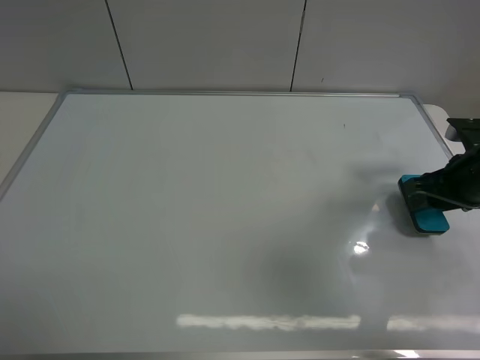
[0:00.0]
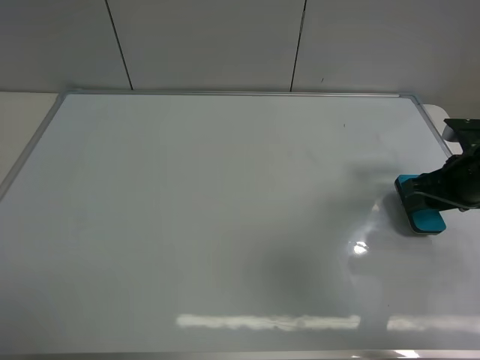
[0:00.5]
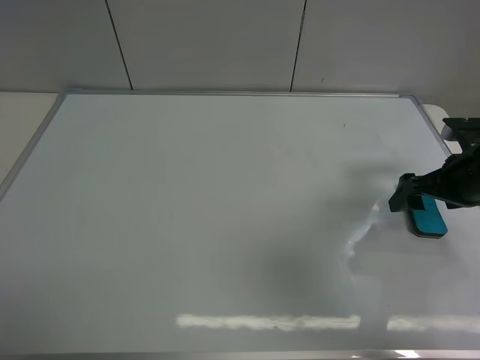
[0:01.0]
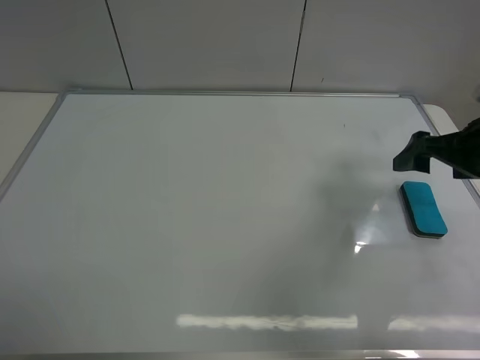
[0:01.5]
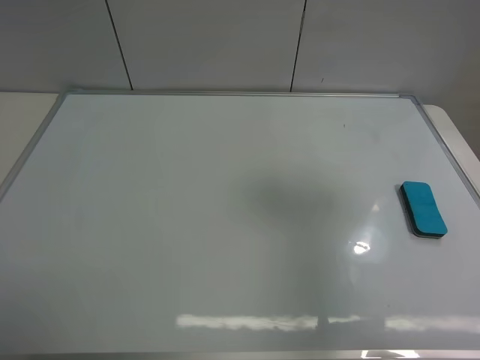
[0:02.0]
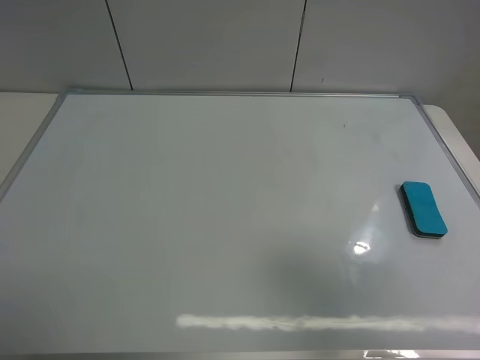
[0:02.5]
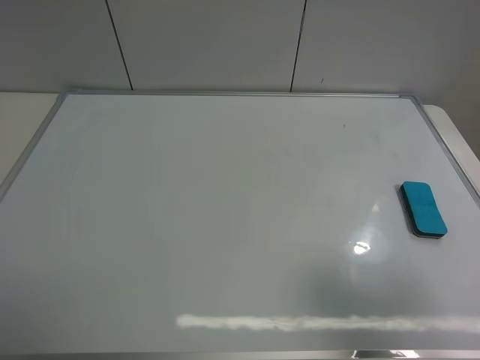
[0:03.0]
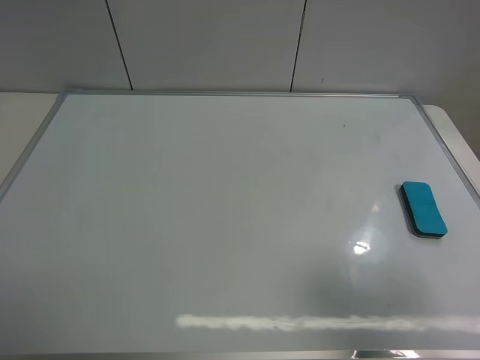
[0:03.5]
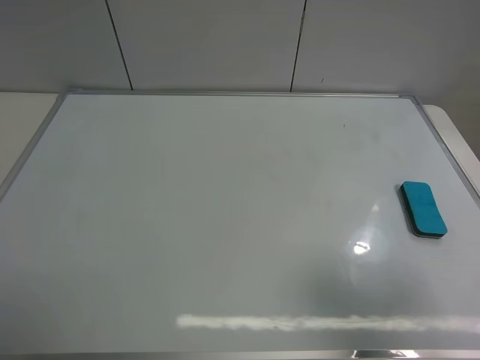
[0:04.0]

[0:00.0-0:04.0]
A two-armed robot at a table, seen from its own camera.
Task of the whole recording: use the left gripper to place the eraser in the right, use the right gripper to pick up the eraser, wipe the notes on the whiteboard clean, and then put it down.
0:00.0 to 0:02.0: The right gripper goes approximately 25 cm upward and backward, and opens up.
0:02.0 to 0:04.0: The right gripper moves backward and downward, about 15 cm.
